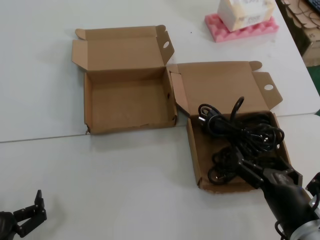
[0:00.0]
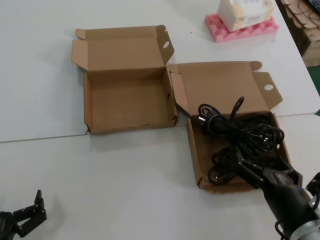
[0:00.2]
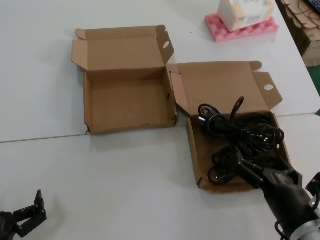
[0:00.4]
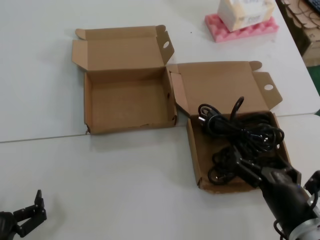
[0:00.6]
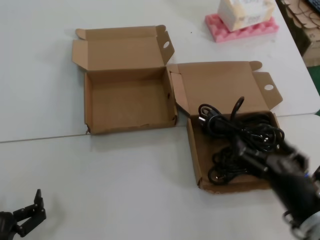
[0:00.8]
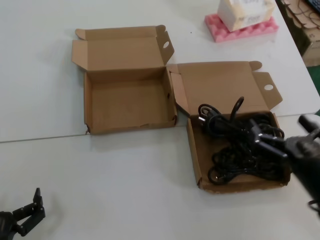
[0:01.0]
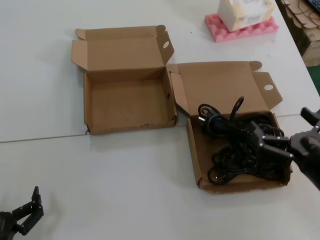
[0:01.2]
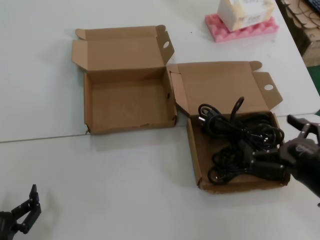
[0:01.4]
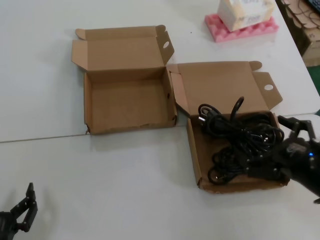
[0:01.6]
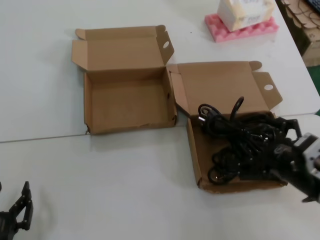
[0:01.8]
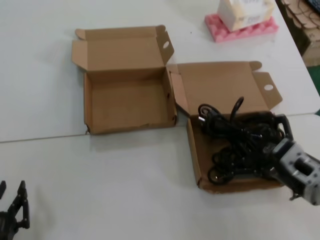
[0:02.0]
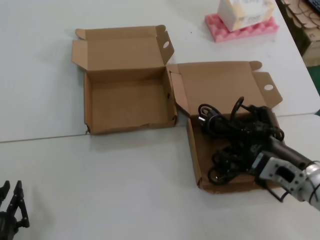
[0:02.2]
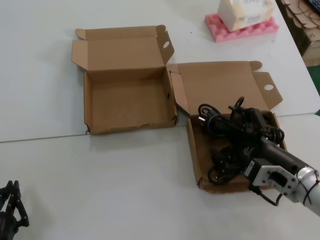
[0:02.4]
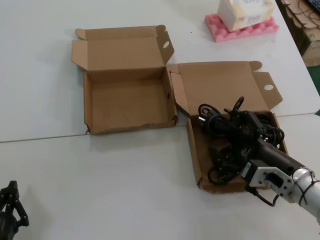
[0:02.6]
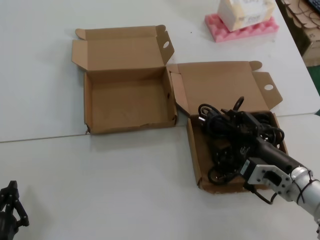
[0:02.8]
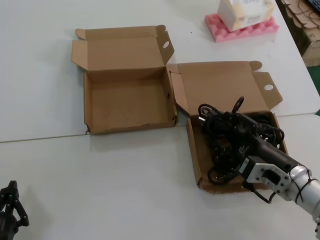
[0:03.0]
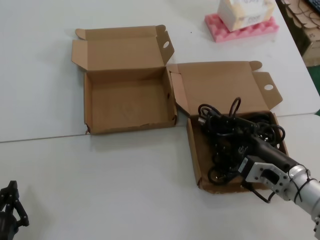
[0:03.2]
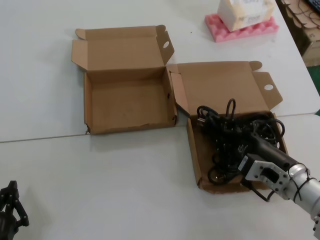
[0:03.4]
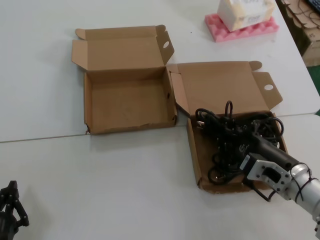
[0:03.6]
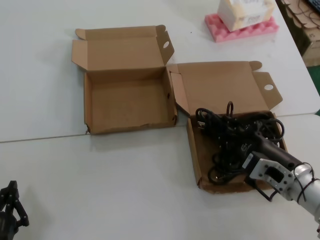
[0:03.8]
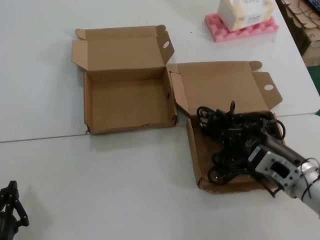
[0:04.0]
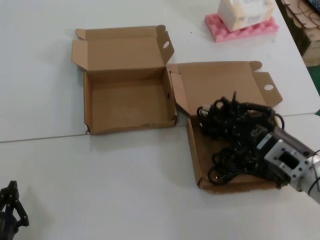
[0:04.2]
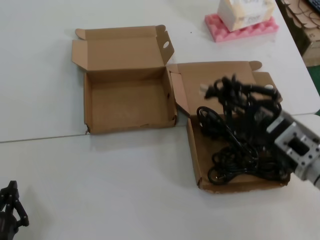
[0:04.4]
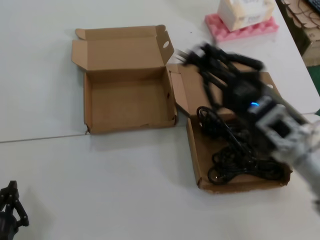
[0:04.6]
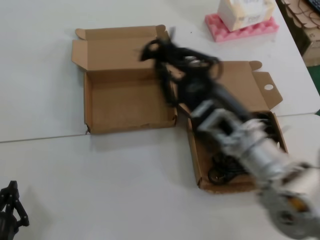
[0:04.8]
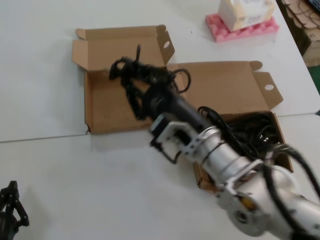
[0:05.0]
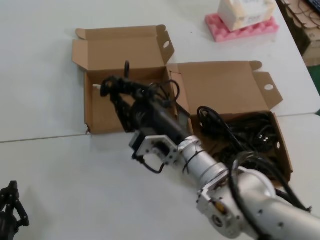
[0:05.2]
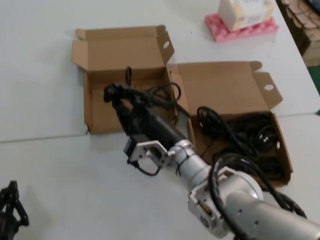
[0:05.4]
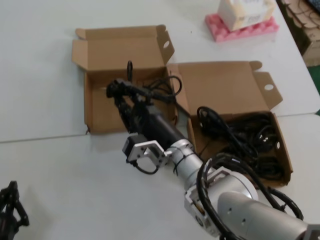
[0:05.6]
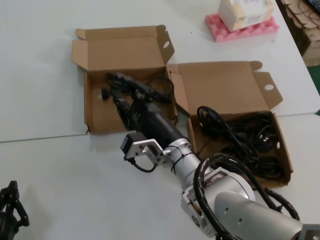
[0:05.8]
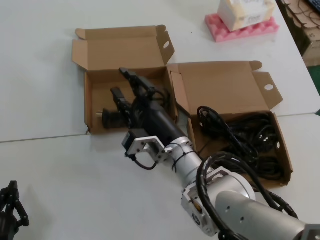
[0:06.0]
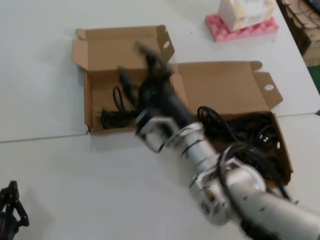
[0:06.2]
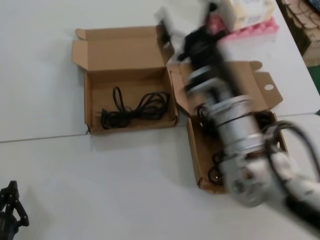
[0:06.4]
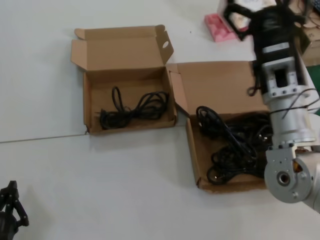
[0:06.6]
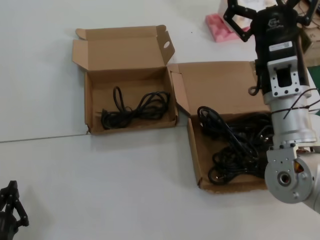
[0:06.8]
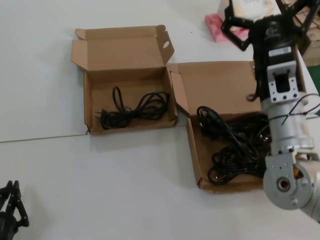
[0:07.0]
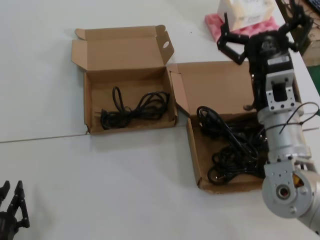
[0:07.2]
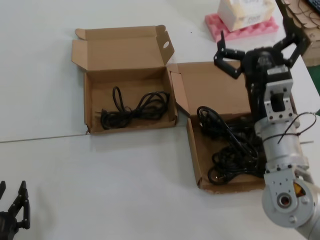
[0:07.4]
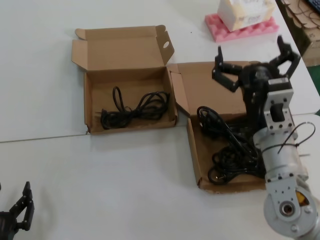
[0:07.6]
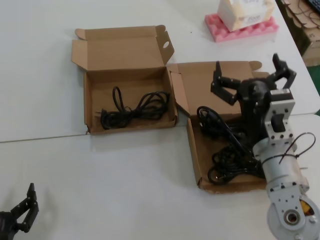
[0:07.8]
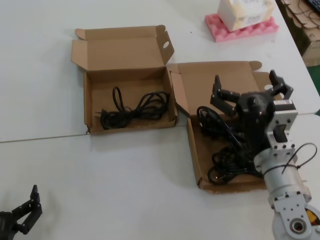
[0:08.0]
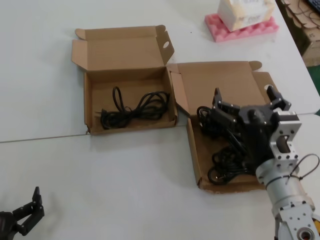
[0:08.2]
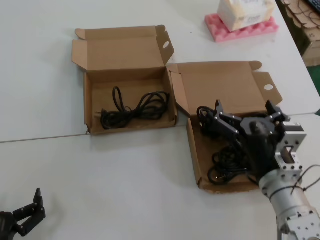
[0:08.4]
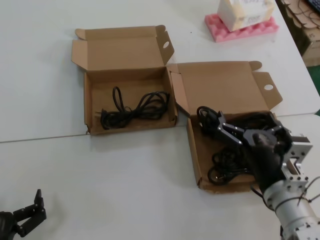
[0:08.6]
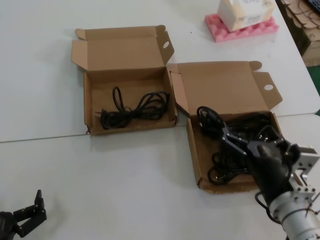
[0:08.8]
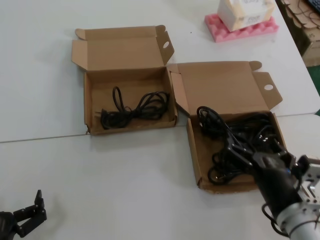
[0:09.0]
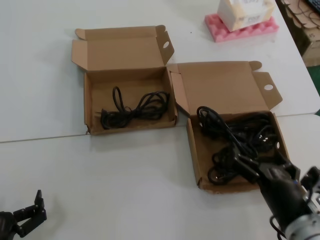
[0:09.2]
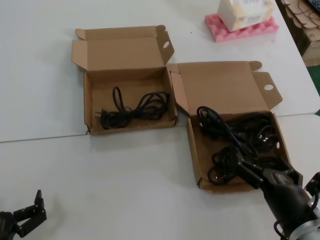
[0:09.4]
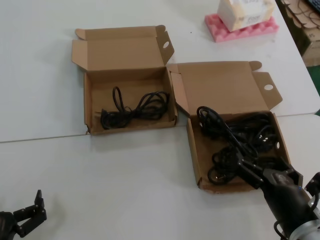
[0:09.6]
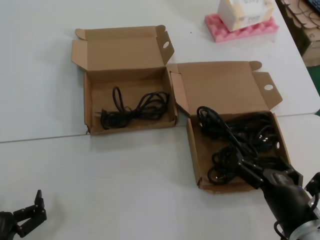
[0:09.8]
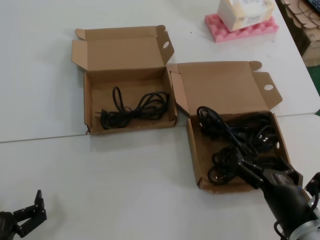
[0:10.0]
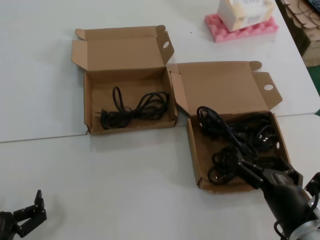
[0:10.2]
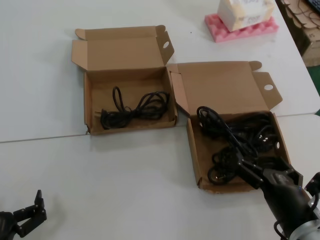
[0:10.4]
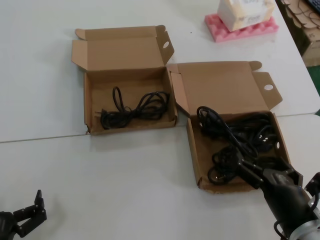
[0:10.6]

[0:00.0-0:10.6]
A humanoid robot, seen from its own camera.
Task of the whole recording: Pick up the power cord from the box containing it and place it in another box.
Step, 0:00.0 to 0:04.0: Grasp the data cable.
Step, 0:04.2 to 0:06.0: Place the data cable in the another box.
0:00.0 to 0:01.6: The right hand is displaced upward and to the right by approximately 10 cm.
0:01.6 to 0:03.0: The right hand moves forward, roughly 10 cm.
0:03.0 to 0:04.6: The right hand moves upward, about 10 cm.
0:04.6 to 0:06.0: The right hand goes some 25 cm to the left, forward and downward.
0:06.0 to 0:07.6: The right hand moves to the right, backward and upward, approximately 15 cm.
0:07.6 to 0:09.0: The right hand shifts about 15 cm backward and downward.
0:09.0 to 0:10.6: There are only small adjustments of the hands.
